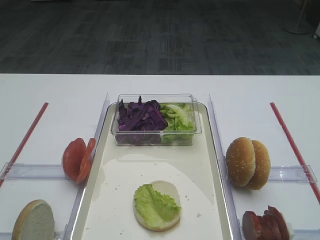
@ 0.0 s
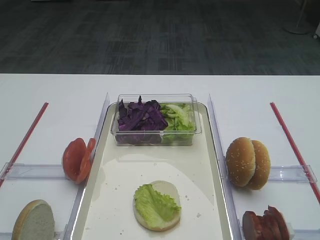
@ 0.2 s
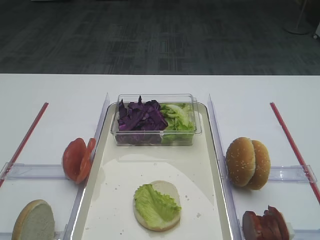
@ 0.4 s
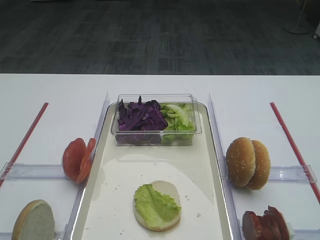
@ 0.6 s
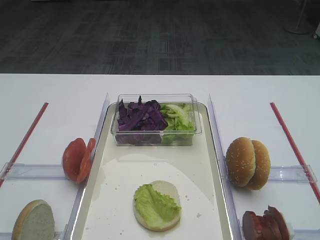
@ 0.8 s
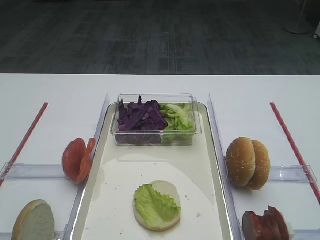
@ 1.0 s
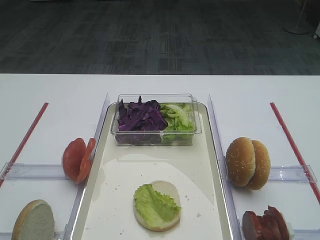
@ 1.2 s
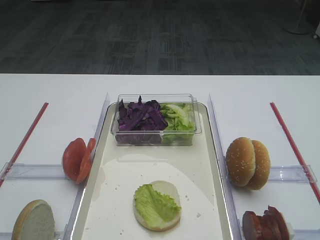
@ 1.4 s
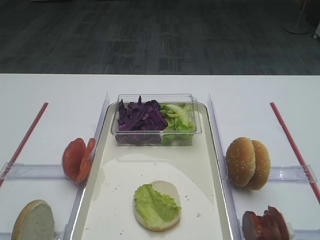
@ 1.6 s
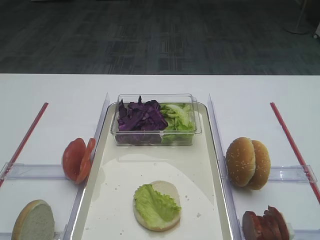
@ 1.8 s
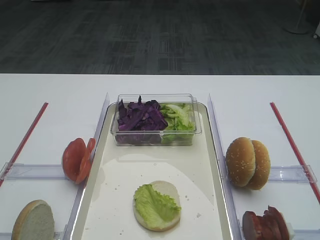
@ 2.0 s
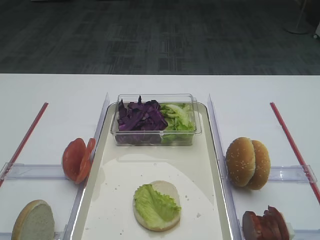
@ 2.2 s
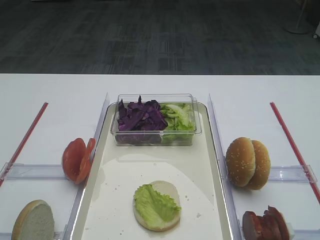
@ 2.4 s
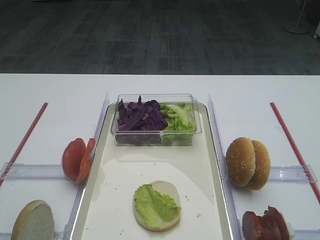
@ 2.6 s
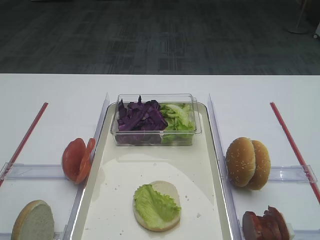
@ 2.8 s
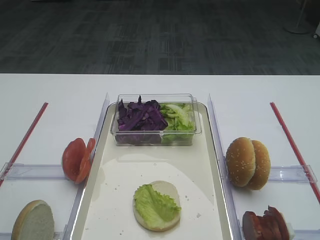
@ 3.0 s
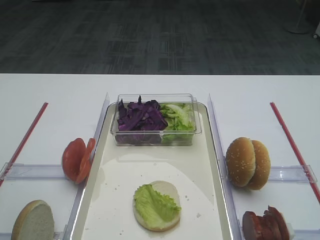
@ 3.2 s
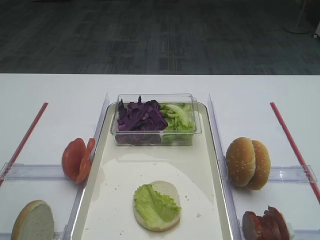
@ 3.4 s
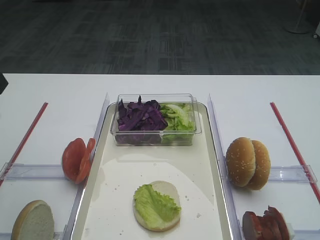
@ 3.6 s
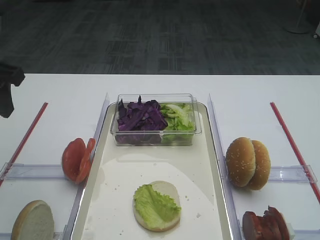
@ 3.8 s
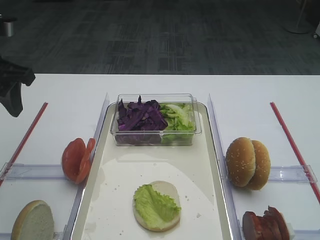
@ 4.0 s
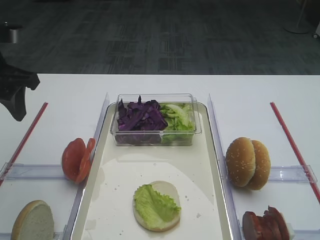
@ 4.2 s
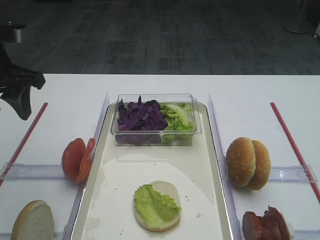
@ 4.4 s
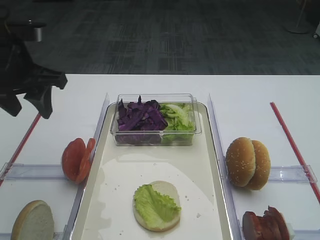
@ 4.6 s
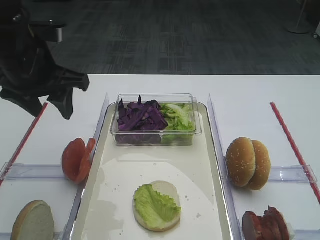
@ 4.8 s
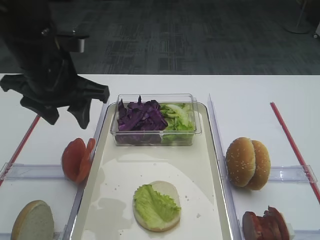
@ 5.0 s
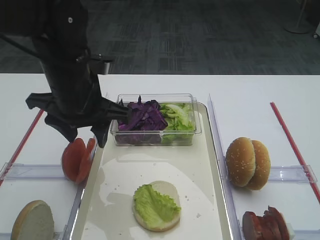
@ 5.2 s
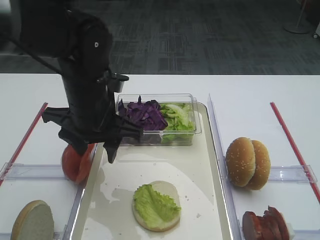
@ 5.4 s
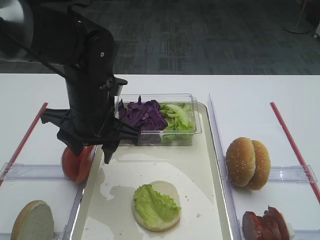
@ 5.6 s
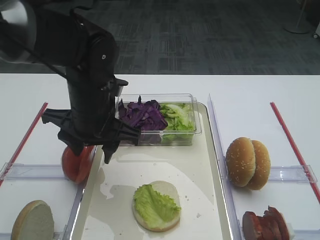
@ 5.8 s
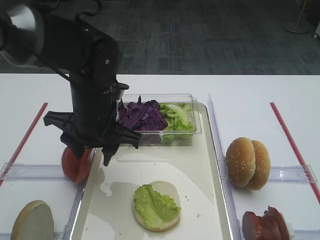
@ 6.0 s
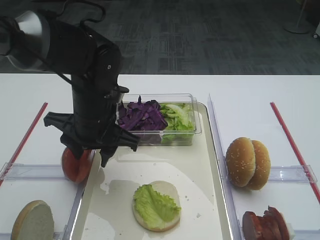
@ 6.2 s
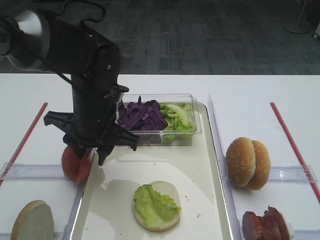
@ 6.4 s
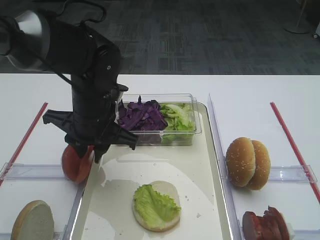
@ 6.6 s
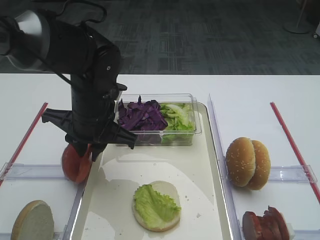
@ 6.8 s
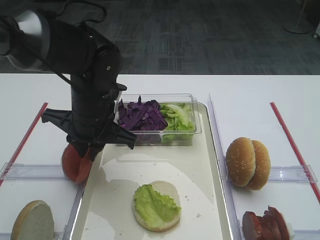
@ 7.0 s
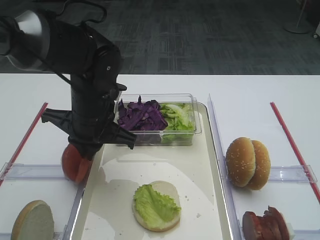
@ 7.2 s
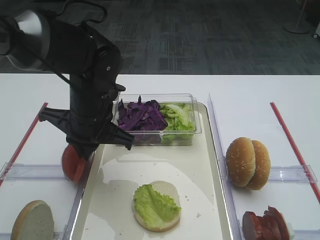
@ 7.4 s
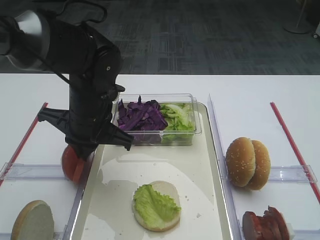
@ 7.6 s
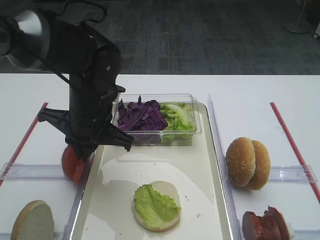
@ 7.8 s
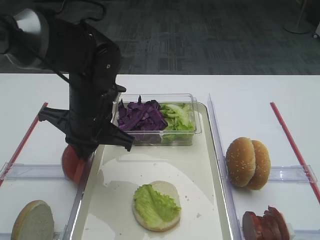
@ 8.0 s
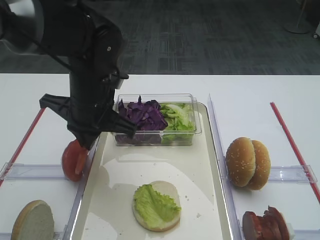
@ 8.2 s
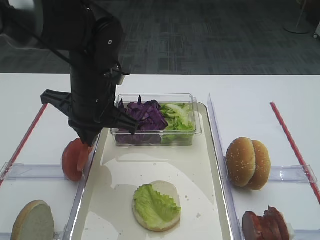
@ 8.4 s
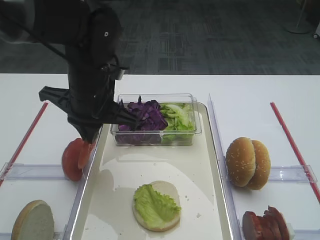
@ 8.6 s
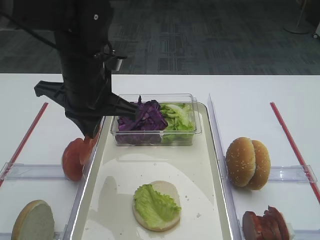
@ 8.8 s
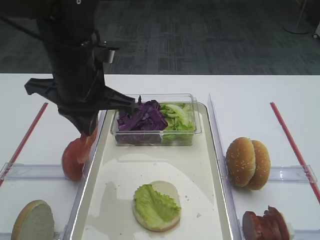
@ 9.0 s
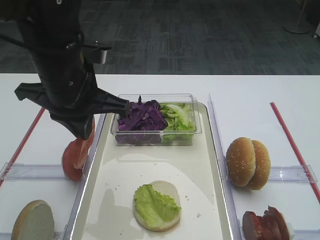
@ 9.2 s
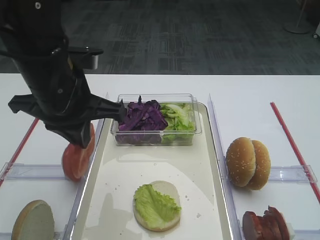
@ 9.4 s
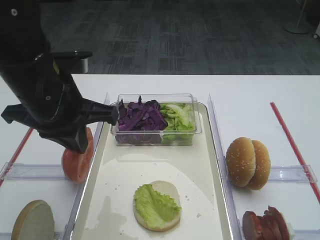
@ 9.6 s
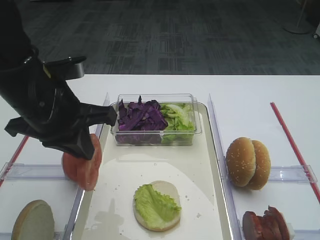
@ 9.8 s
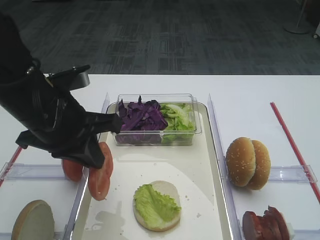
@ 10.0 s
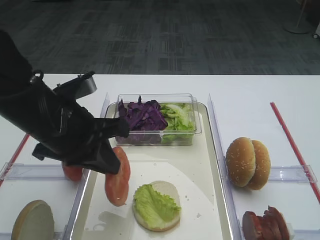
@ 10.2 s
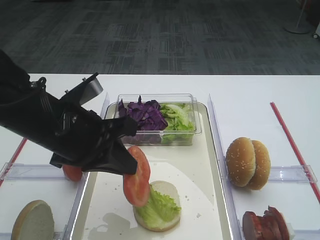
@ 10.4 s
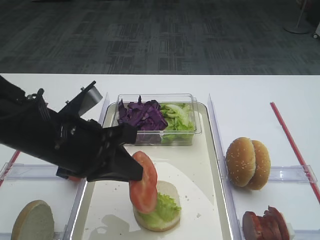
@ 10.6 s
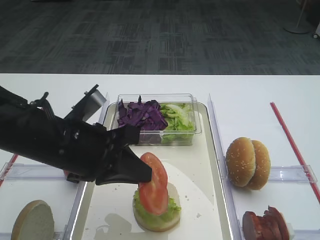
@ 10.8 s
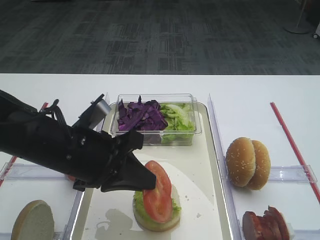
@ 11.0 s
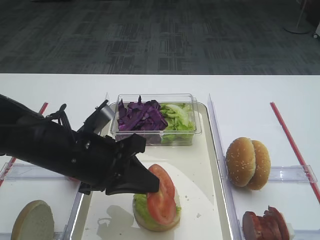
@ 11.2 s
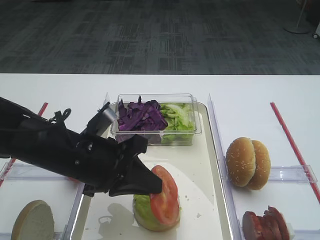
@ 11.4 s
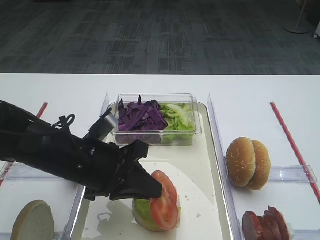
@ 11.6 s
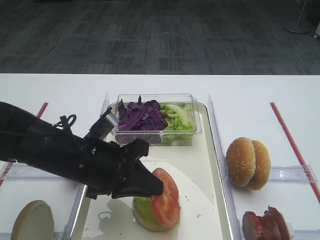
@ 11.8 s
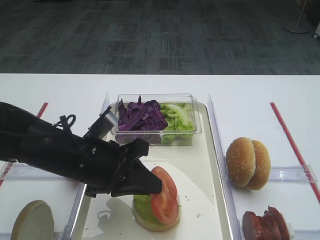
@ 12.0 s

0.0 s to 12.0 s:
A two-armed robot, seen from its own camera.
Step, 0.0 to 8.4 s: Pick up the tomato slice with the left gripper.
3.0 to 4.4 s: The left gripper heads forward, covering roughly 20 cm.
4.4 to 6.0 s: The left gripper shifts approximately 20 cm to the right and downward.
6.0 to 7.6 s: The left gripper closes its fingers.
7.6 to 9.0 s: The left gripper moves upward, approximately 10 cm.
9.0 to 10.4 s: The left gripper heads backward, covering about 5 cm.
10.4 to 12.0 s: The left gripper heads downward, covering approximately 5 cm.

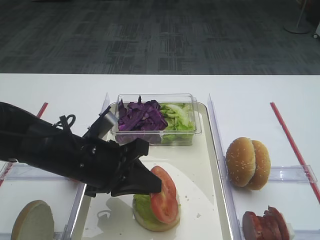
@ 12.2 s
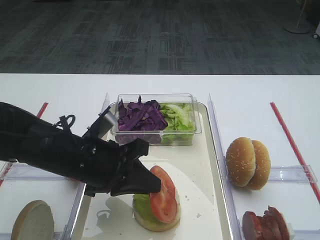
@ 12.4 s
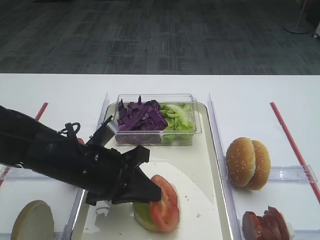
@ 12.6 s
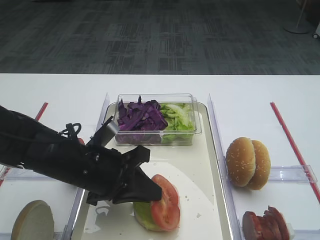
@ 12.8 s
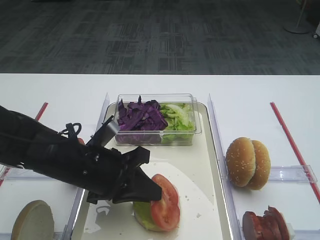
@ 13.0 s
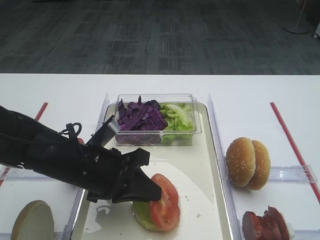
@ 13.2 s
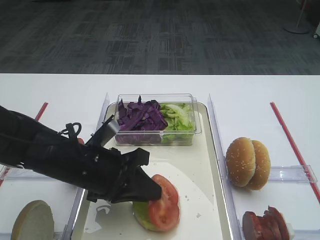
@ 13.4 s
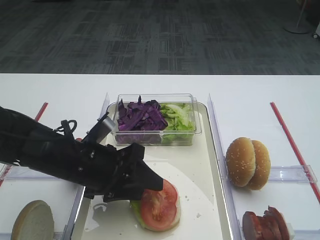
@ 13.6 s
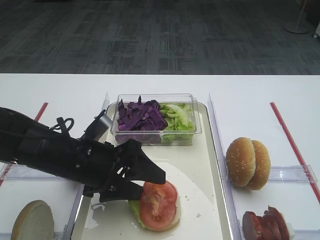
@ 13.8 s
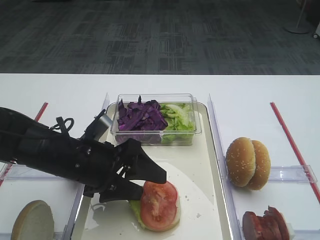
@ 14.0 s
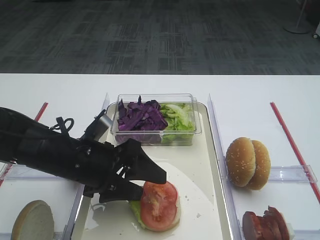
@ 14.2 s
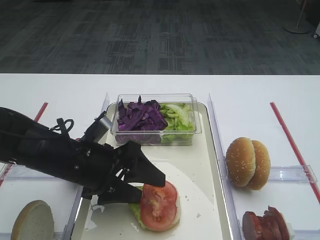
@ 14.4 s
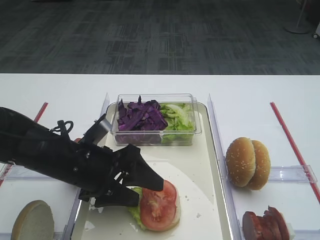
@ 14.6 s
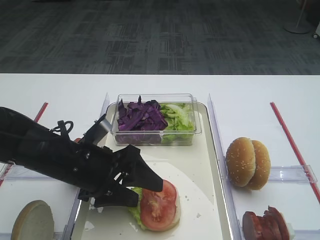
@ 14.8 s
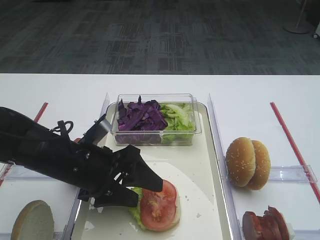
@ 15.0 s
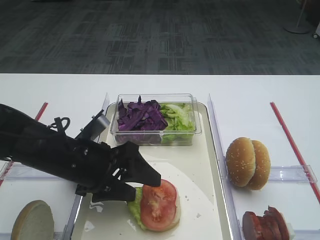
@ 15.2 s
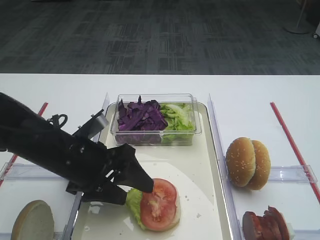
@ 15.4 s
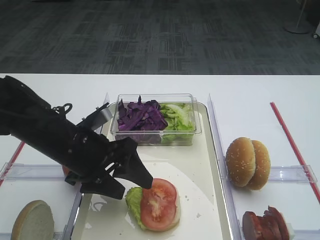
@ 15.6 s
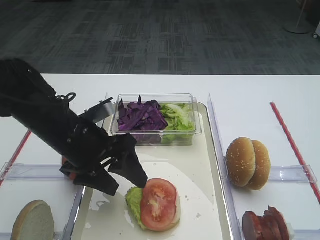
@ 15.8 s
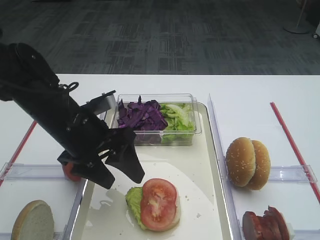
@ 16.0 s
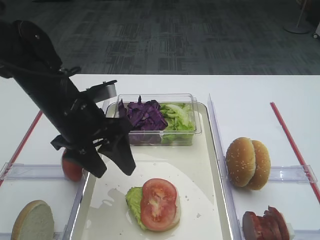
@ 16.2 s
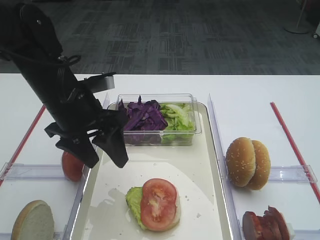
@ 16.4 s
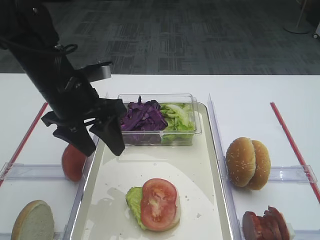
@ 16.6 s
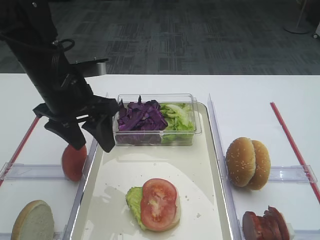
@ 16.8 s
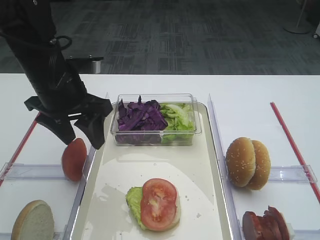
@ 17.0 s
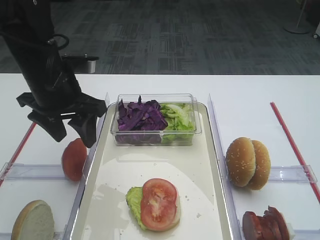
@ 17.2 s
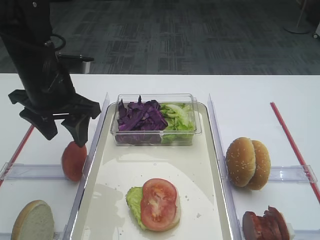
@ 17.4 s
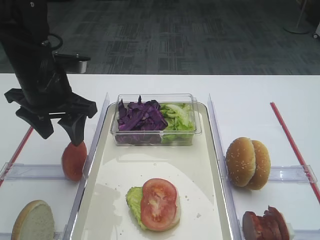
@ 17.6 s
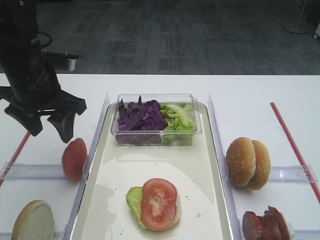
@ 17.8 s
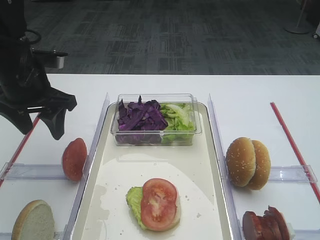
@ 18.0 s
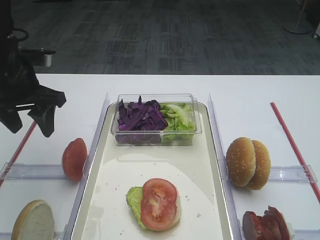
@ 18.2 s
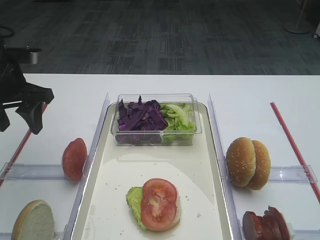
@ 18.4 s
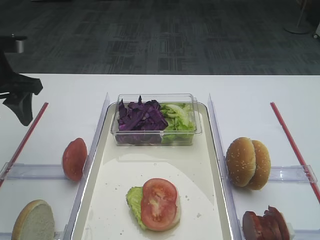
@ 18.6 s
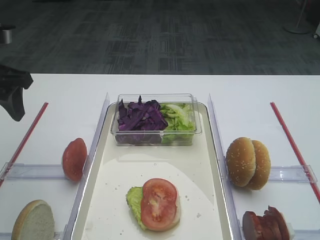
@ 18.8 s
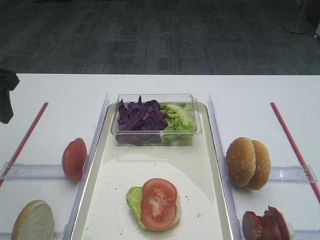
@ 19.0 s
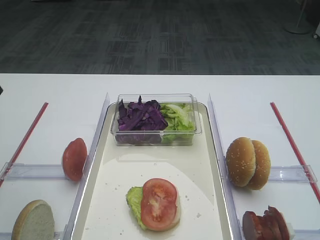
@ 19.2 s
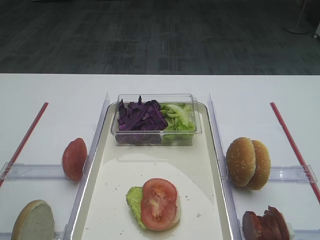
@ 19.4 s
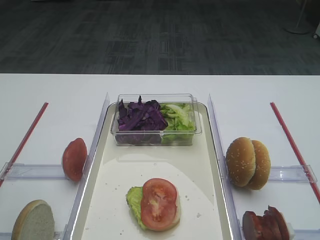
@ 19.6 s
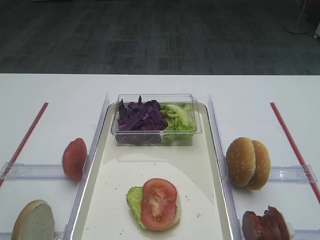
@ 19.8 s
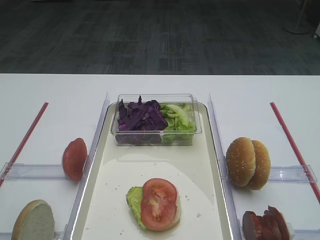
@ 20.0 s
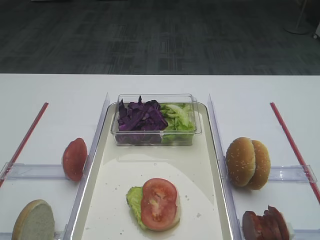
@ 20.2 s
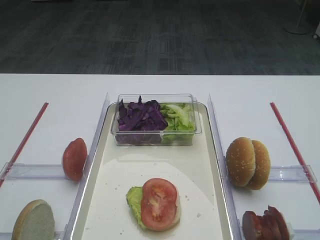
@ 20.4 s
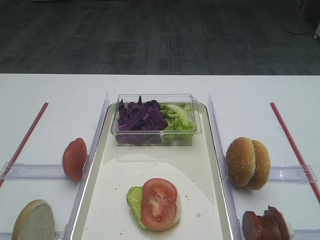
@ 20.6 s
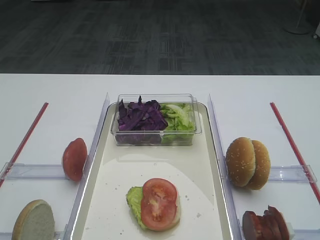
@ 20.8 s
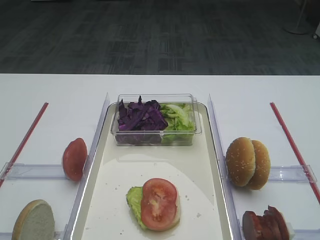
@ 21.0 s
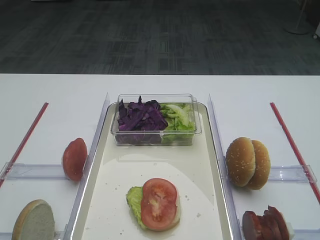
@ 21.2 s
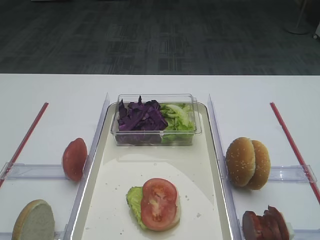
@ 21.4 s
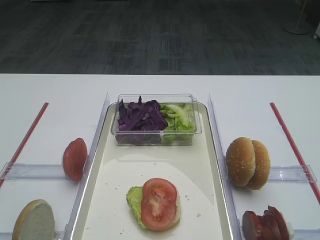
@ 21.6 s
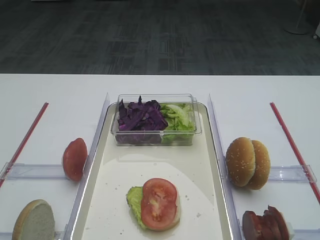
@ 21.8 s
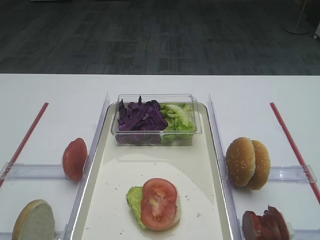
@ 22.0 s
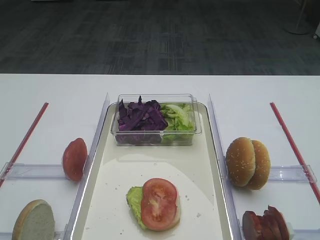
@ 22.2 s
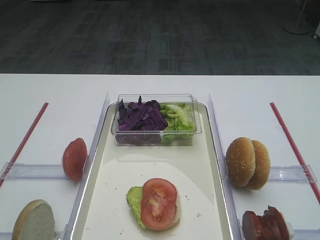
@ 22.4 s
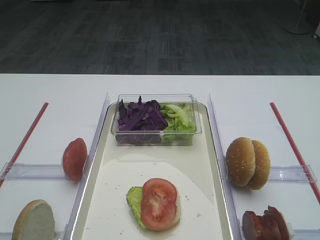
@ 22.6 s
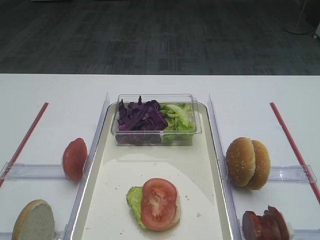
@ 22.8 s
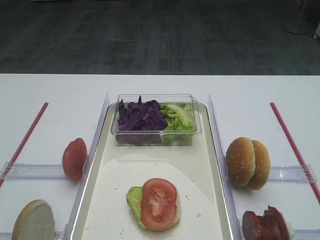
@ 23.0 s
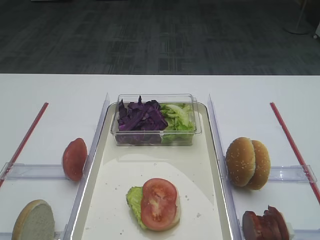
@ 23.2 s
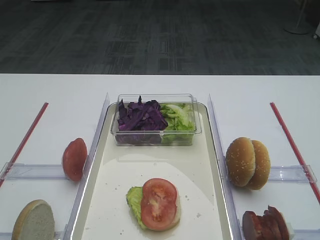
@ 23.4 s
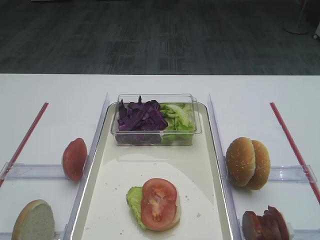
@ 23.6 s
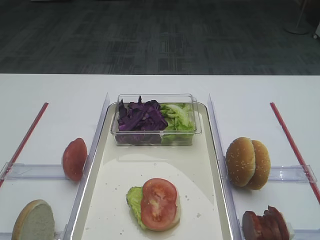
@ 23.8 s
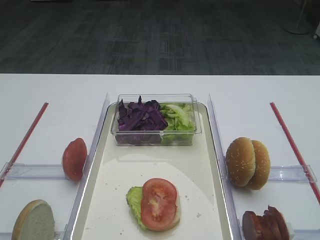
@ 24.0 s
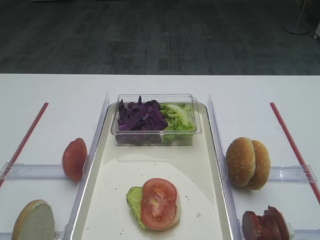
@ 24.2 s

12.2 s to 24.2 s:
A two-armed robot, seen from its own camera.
Step, 12.2 to 14.6 s: Place the tomato slice on the lettuce leaf with the left gripper.
12.2 to 13.8 s: The left gripper opens.
13.8 to 15.2 s: The two grippers keep their place.
15.2 to 16.6 s: The left gripper moves upward and forward, roughly 10 cm.
16.6 to 18.2 s: The left gripper heads to the left, covering about 10 cm.
18.2 to 19.8 s: The left gripper heads backward and upward, covering some 20 cm.
22.6 to 24.2 s: Both grippers stay put.
